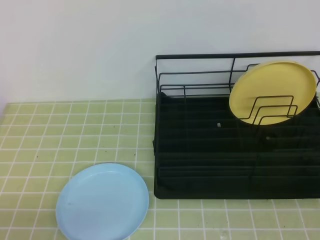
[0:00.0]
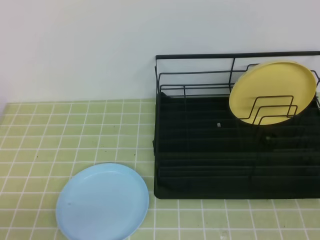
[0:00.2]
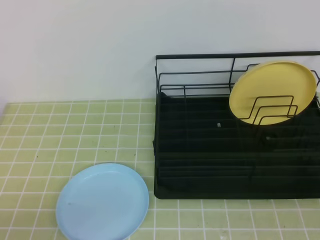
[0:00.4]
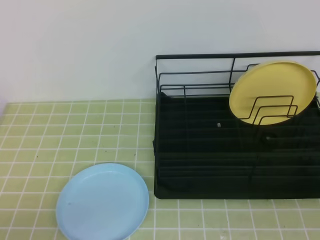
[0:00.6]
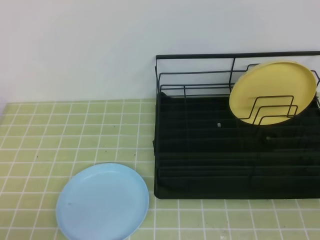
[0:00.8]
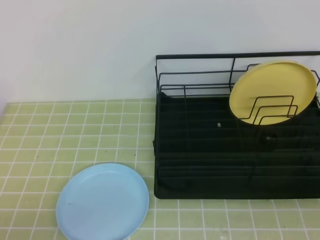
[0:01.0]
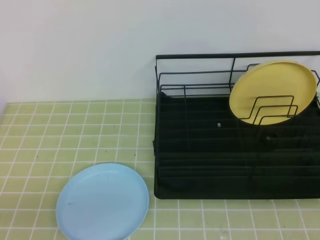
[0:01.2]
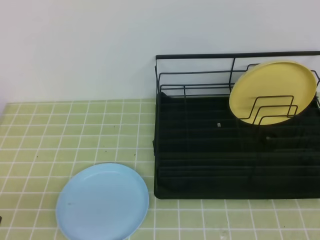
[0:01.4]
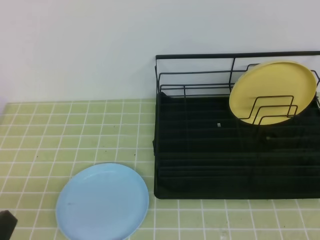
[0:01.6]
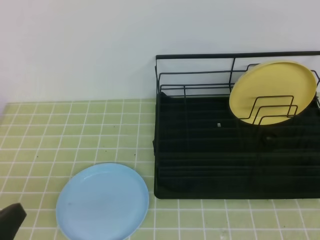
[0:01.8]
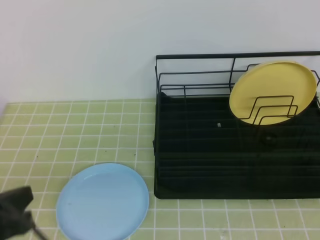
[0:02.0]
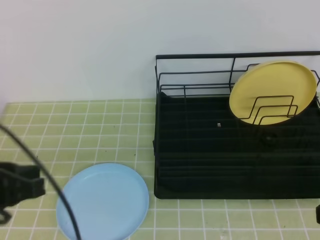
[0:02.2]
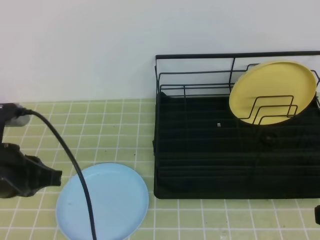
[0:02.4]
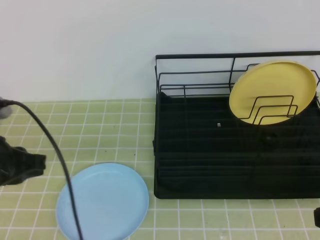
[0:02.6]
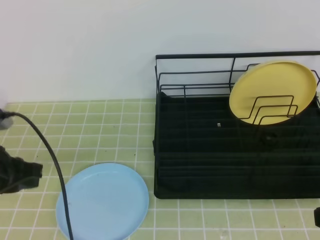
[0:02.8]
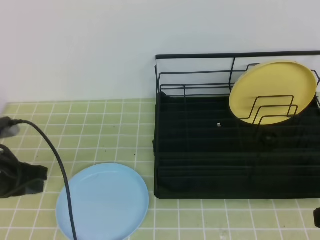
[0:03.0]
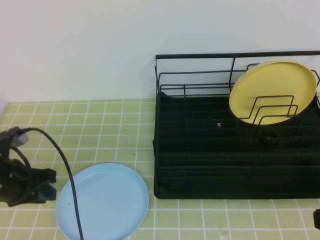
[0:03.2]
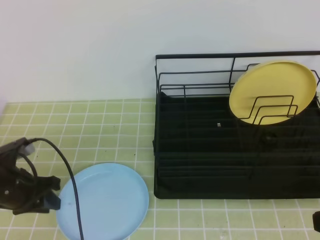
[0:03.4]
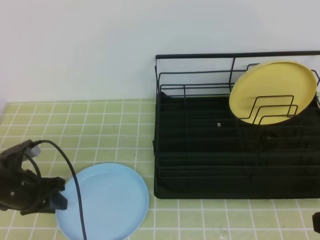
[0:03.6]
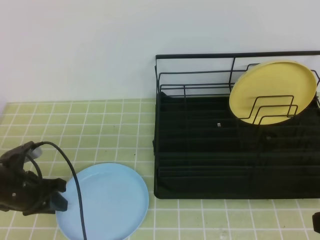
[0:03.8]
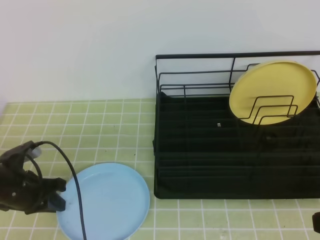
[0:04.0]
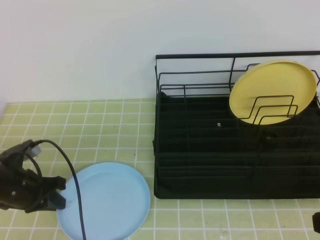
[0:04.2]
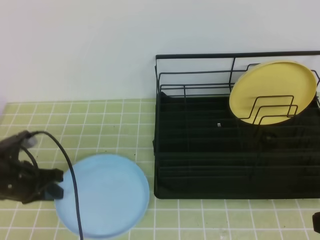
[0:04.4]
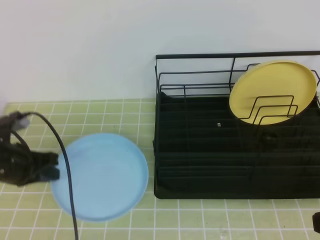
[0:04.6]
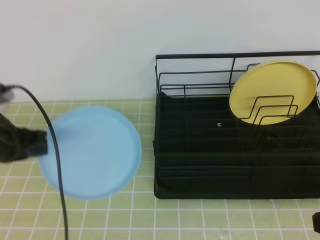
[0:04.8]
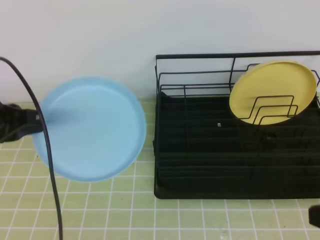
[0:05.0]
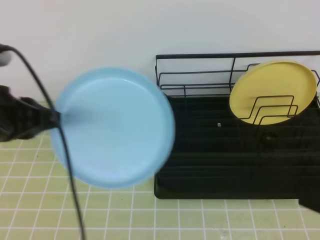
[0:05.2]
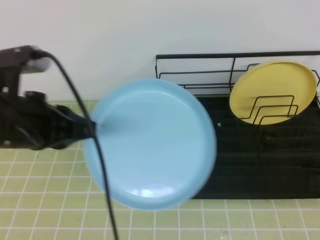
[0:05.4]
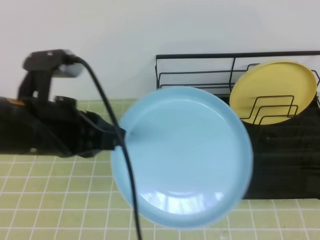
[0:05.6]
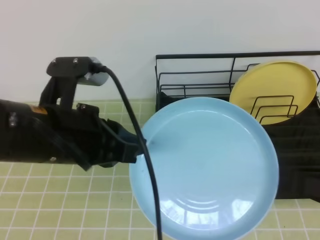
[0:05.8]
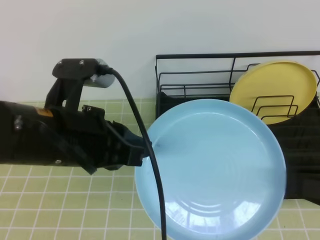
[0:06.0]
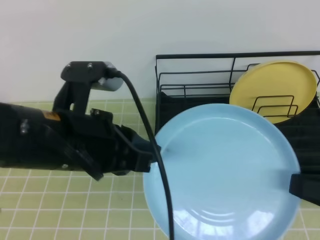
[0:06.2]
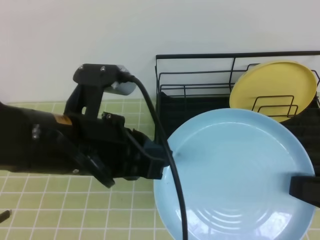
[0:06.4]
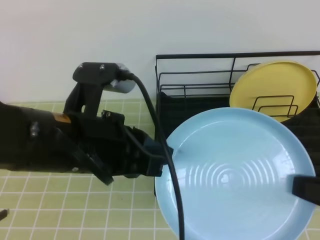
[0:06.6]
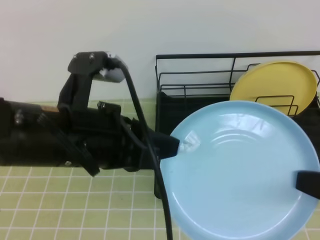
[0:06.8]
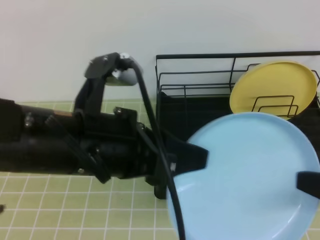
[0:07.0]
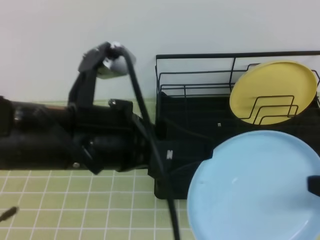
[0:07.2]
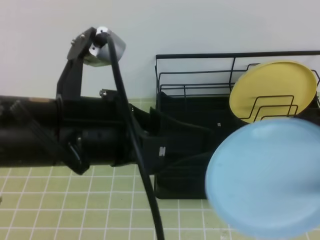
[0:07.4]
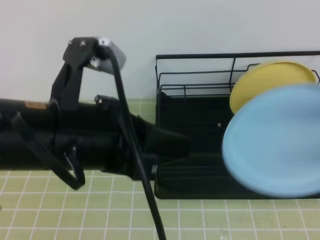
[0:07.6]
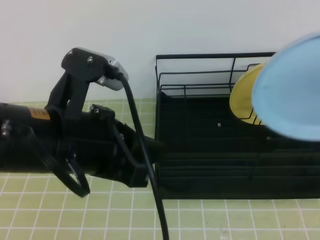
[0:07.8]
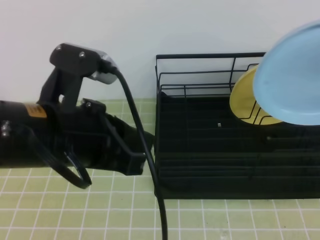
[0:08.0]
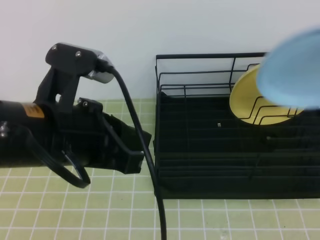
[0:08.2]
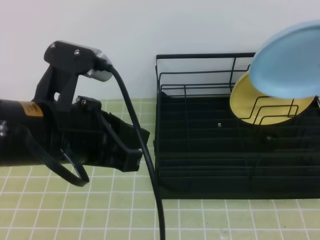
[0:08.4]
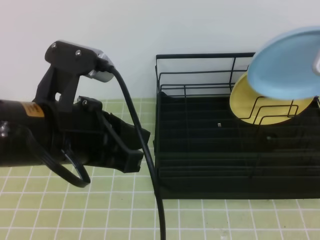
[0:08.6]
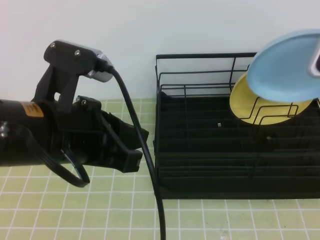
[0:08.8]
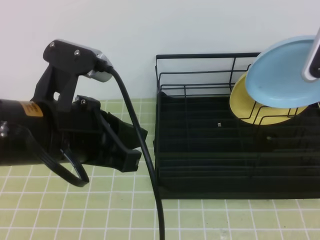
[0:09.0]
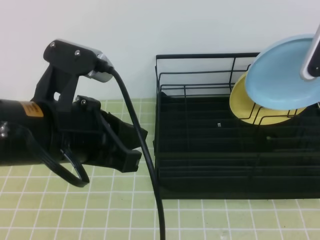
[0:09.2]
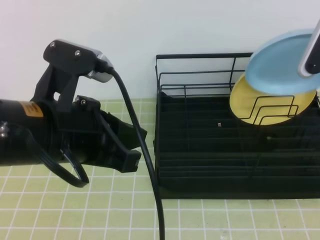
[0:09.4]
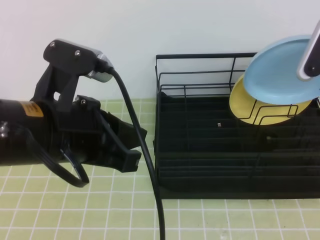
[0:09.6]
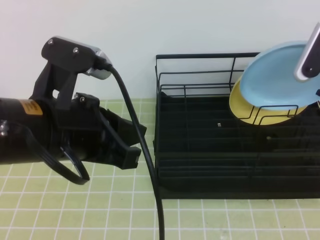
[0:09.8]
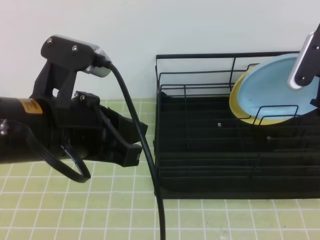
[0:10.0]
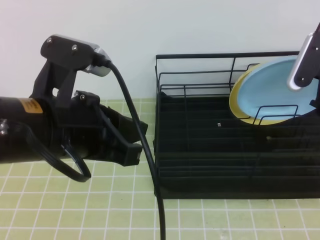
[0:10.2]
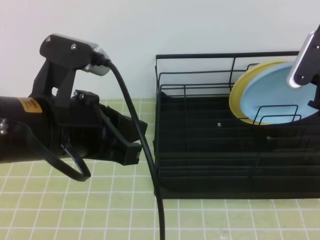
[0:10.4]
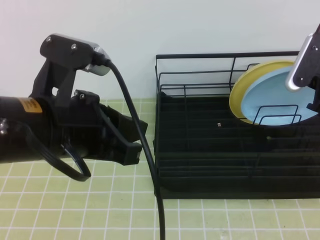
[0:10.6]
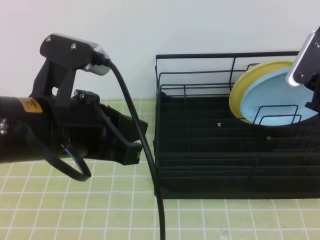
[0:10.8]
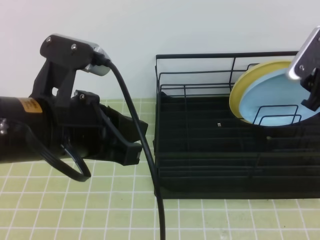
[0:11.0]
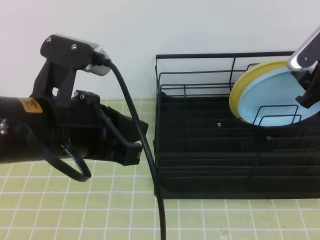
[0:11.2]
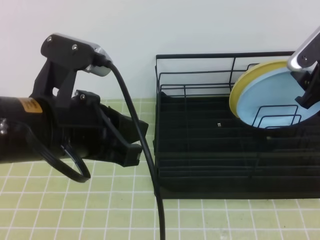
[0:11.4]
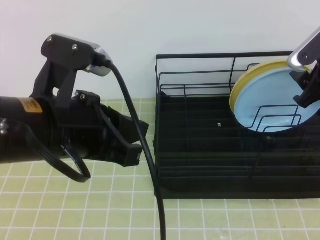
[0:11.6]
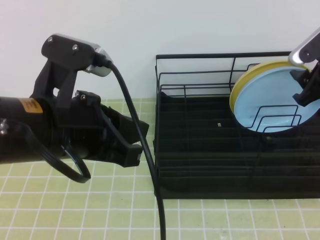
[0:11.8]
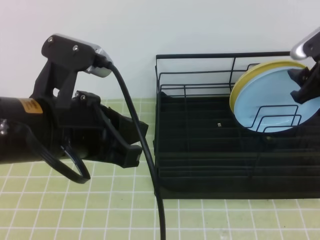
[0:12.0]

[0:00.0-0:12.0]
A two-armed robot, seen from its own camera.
0:01.6 to 0:03.0: The left gripper shifts roughly 20 cm forward.
0:03.0 to 0:04.4: The left gripper goes about 5 cm downward.
0:04.4 to 0:06.0: The left gripper shifts some 25 cm upward, to the right and backward. The right gripper opens its fingers.
0:06.0 to 0:07.6: The right gripper ends up approximately 5 cm from where it was, and closes up; the left gripper shifts by some 5 cm, and opens its fingers.
0:07.6 to 0:09.0: The left gripper closes its fingers, while the right gripper goes roughly 15 cm forward.
0:09.0 to 0:10.4: The right gripper opens its fingers.
0:10.4 to 0:12.0: The right gripper opens.

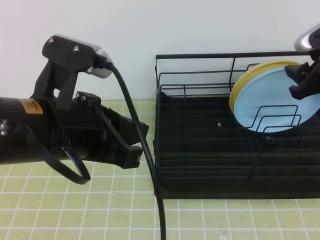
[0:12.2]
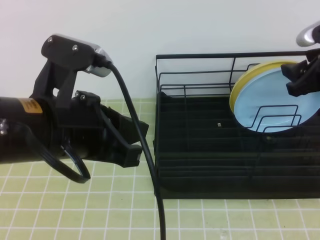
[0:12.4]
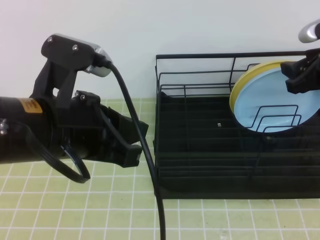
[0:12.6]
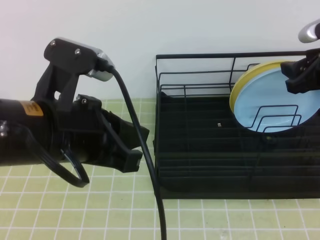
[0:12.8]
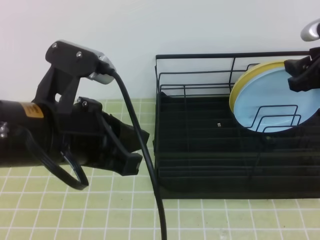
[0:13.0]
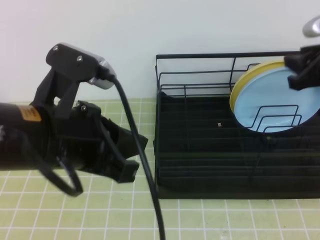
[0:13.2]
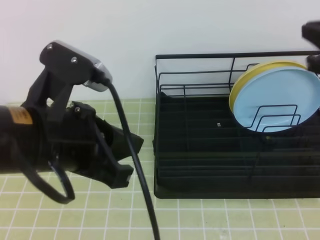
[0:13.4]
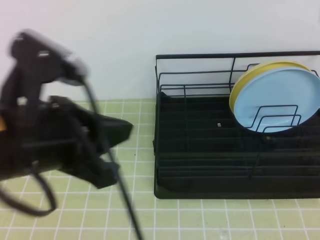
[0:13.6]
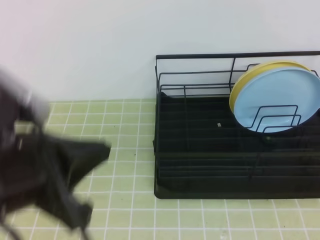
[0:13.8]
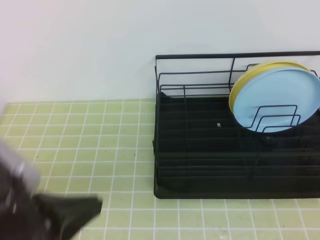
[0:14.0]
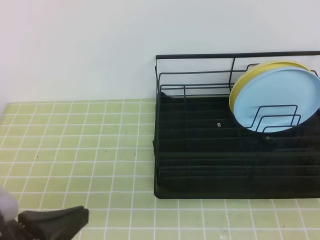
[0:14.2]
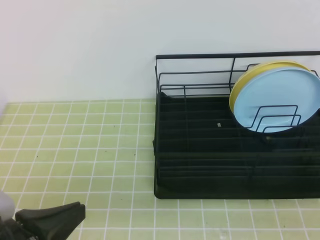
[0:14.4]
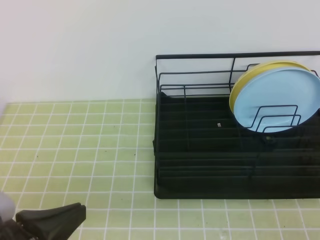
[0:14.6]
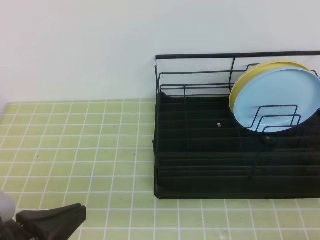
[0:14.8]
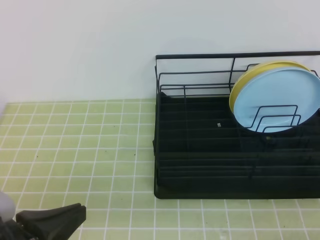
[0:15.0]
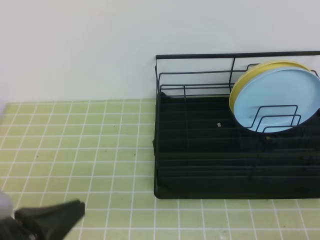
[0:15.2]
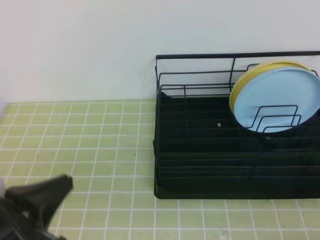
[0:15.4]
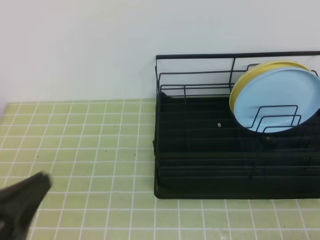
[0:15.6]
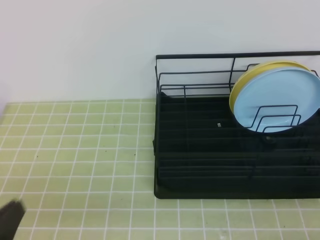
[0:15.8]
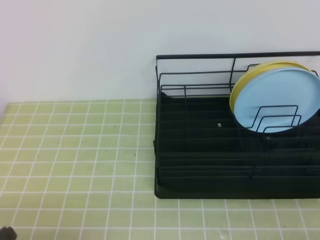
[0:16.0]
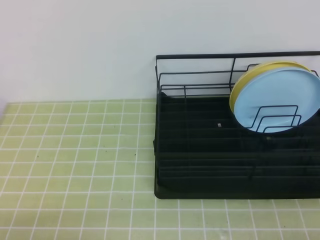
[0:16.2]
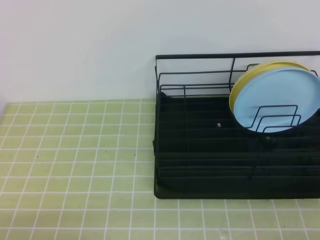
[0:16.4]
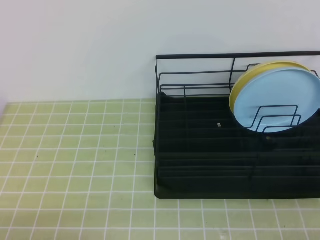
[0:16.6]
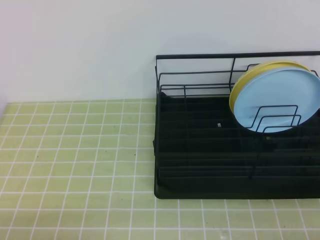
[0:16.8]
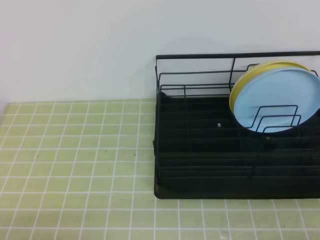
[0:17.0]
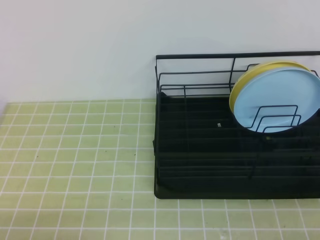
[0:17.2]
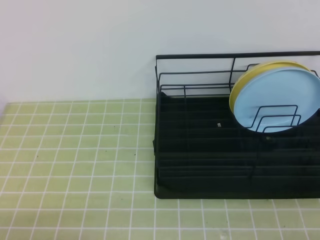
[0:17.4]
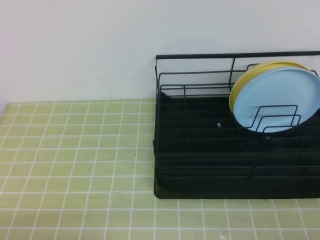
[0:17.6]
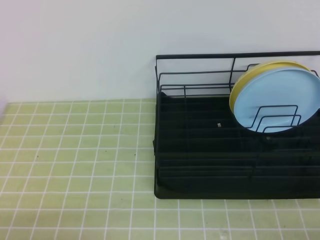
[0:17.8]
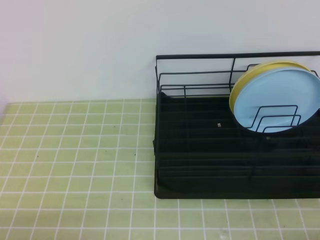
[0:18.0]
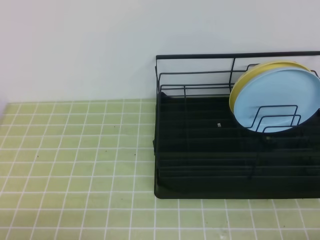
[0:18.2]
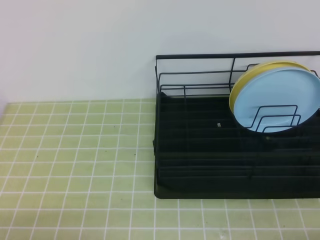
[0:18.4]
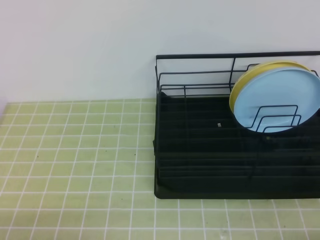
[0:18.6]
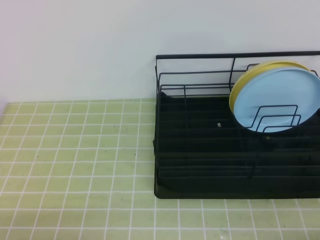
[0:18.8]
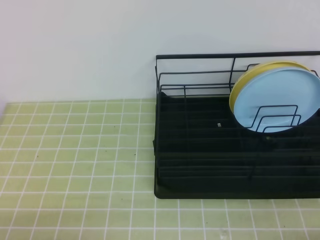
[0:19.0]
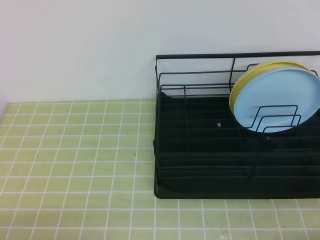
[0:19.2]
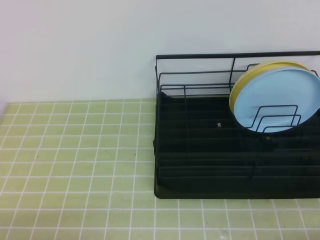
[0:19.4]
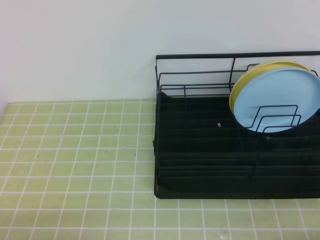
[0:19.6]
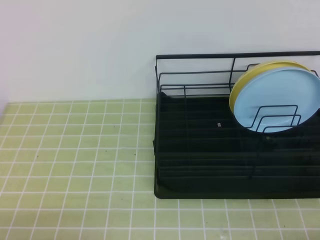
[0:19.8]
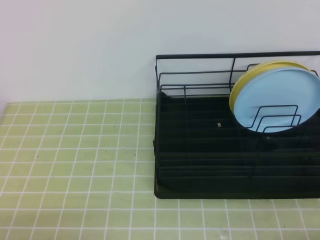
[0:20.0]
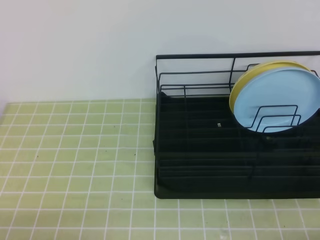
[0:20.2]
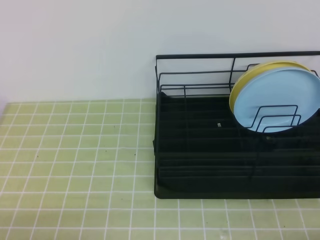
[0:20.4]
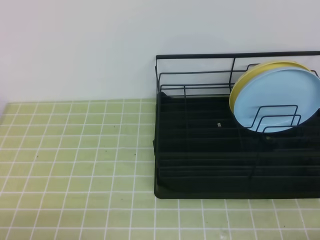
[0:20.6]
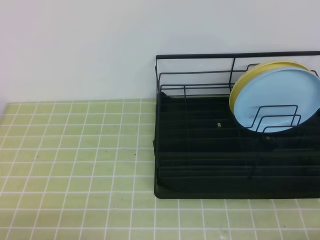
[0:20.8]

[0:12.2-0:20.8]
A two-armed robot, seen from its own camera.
0:12.2 to 0:13.6: The right gripper shifts about 15 cm backward and upward, and closes up.
0:13.6 to 0:15.0: The right gripper shifts some 25 cm downward and backward; the left gripper is displaced downward, backward and to the left by some 15 cm.
0:15.0 to 0:16.6: The left gripper shifts some 10 cm downward and to the left.
0:18.0 to 0:20.8: Neither gripper changes place.
